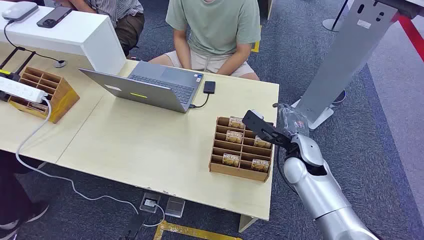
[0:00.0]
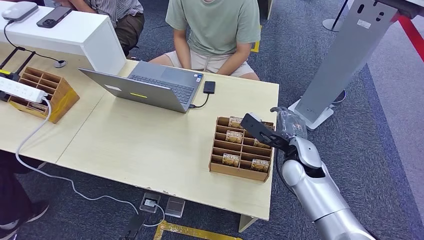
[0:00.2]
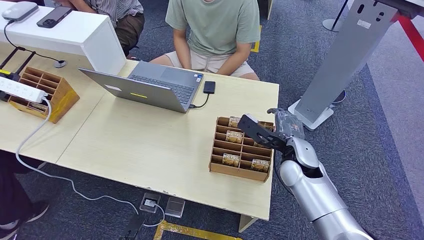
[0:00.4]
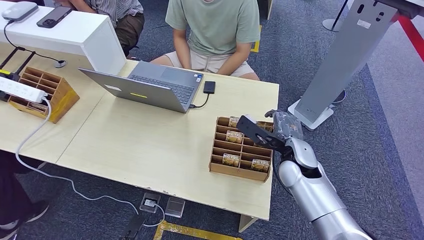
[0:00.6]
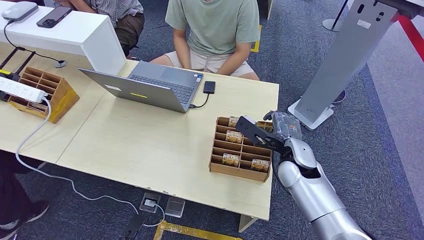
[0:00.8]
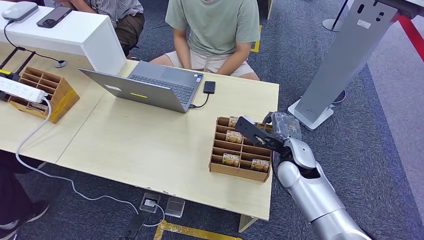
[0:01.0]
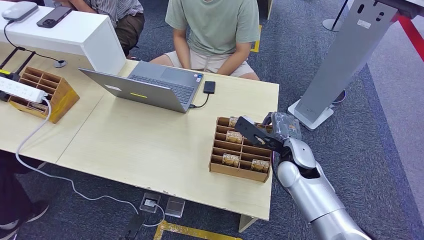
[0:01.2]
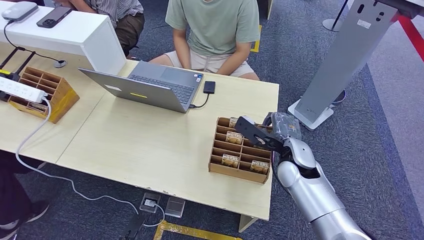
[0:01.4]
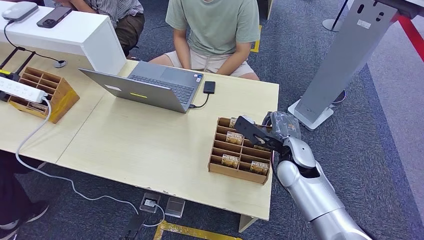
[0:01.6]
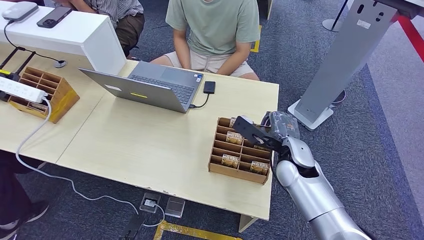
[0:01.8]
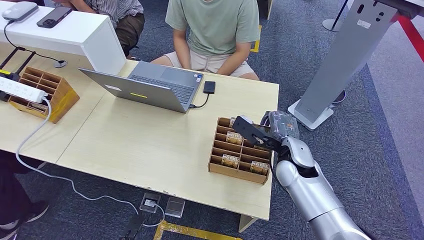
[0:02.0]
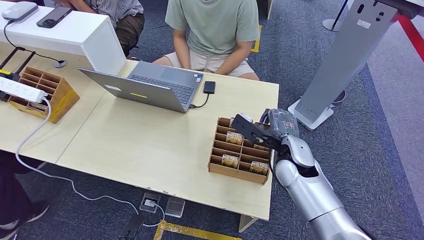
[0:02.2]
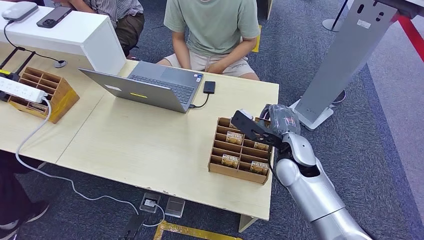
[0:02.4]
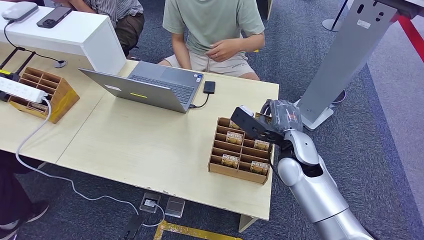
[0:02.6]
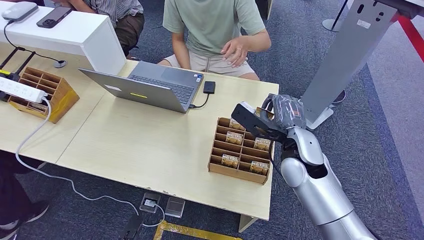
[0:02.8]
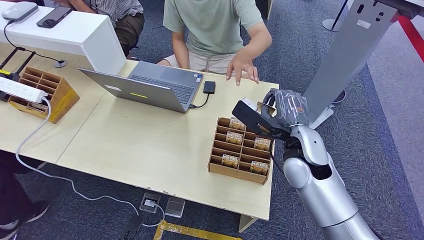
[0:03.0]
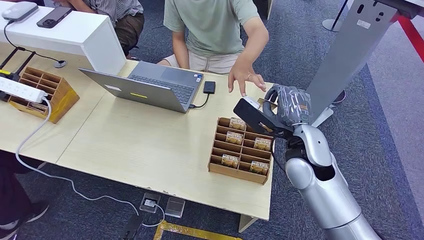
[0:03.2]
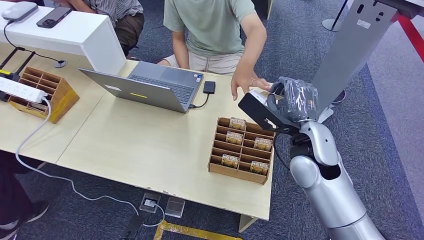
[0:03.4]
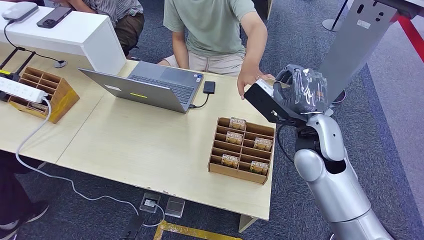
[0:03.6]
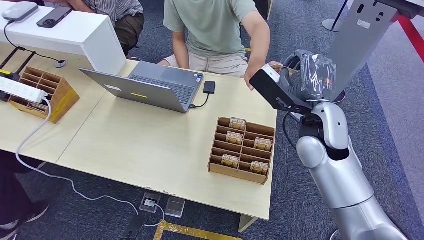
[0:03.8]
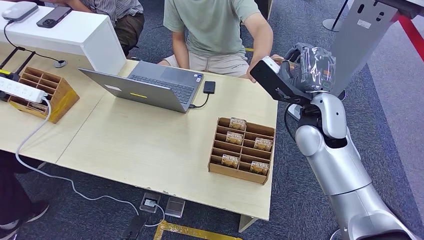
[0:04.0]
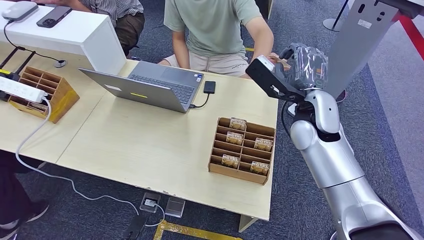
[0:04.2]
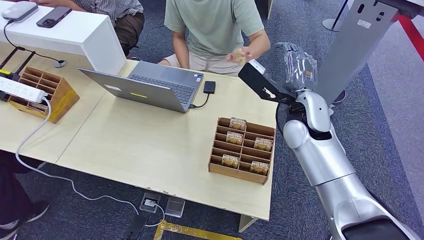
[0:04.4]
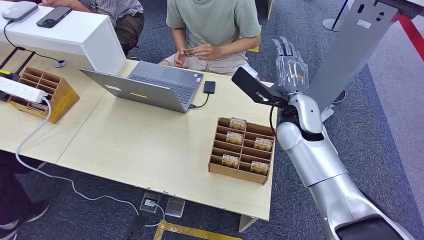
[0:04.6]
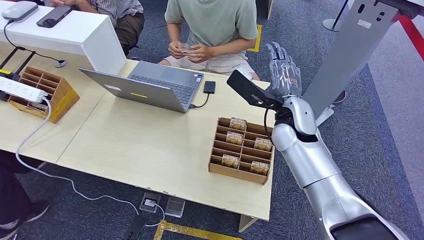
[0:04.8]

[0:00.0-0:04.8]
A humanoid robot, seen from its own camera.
Step, 0:00.0 to 0:02.4: Pick up the room card from the card holder.
Step, 0:03.2 to 0:04.8: Hand the room card to the target.
0:01.6 to 0:03.2: The right hand shifts some 10 cm upward.
0:03.2 to 0:04.8: The right hand heads forward, covering approximately 5 cm.
